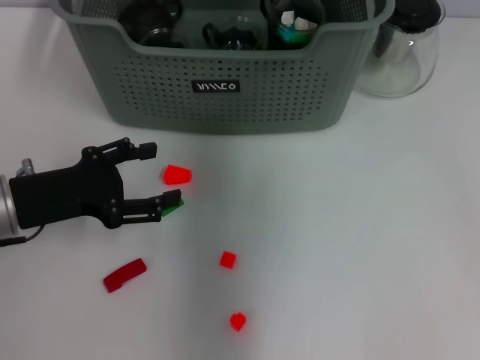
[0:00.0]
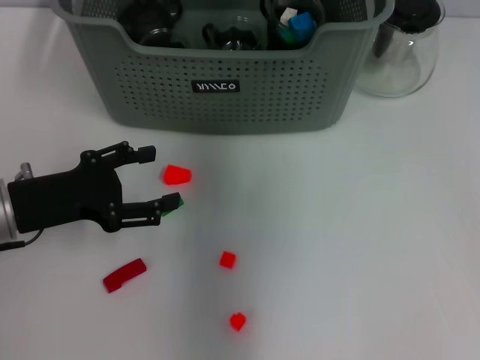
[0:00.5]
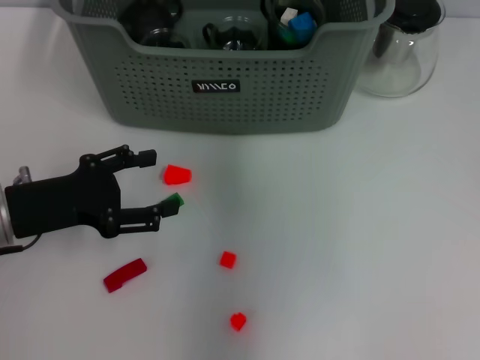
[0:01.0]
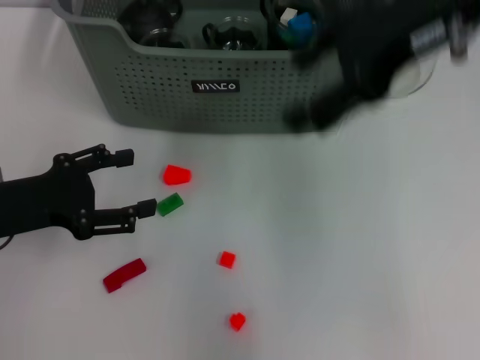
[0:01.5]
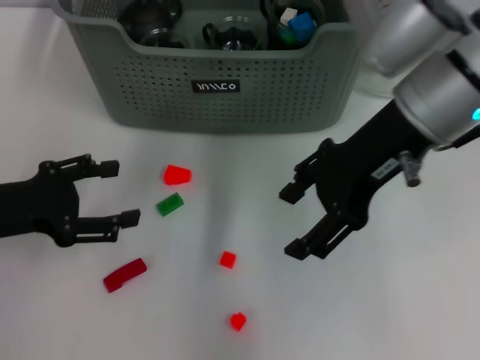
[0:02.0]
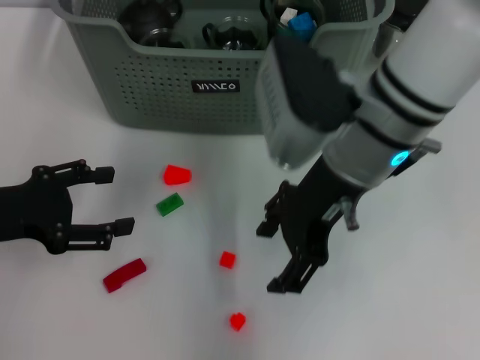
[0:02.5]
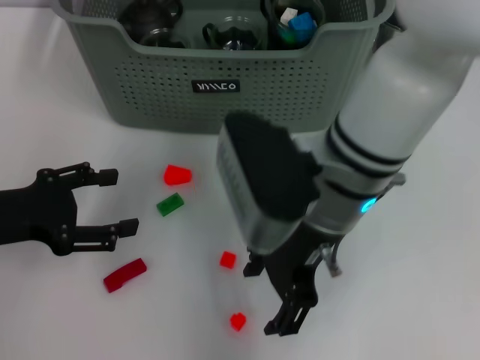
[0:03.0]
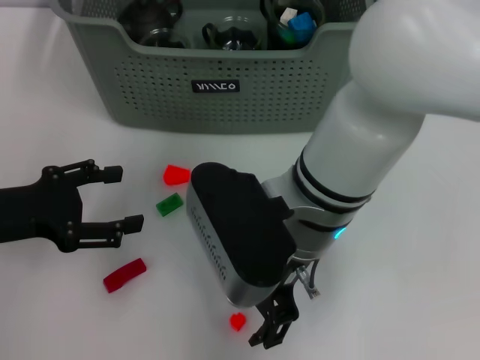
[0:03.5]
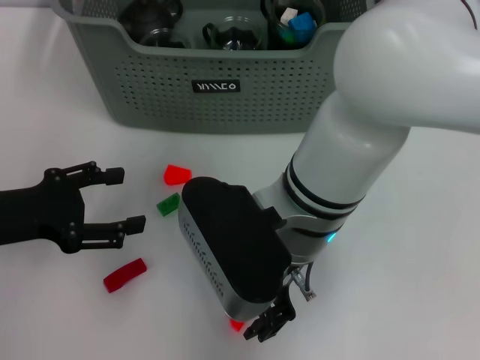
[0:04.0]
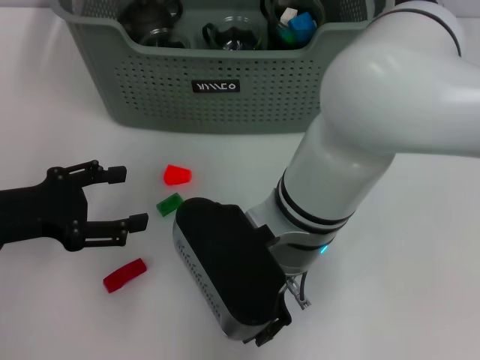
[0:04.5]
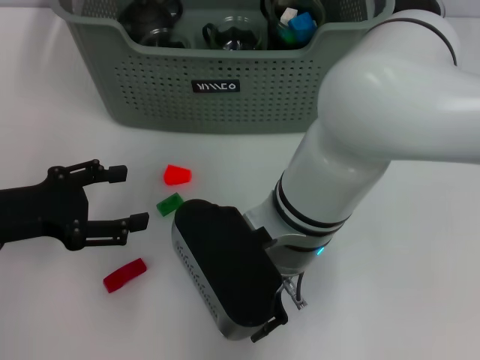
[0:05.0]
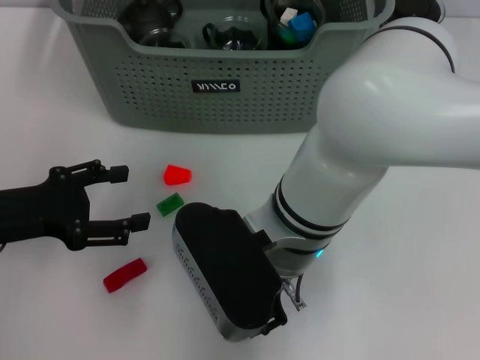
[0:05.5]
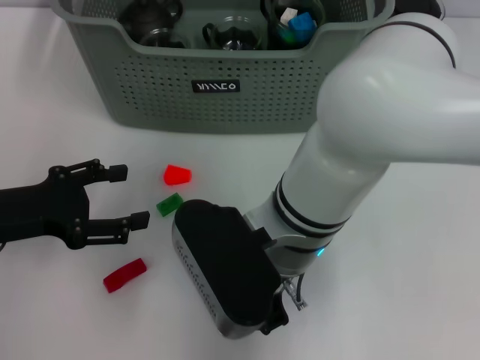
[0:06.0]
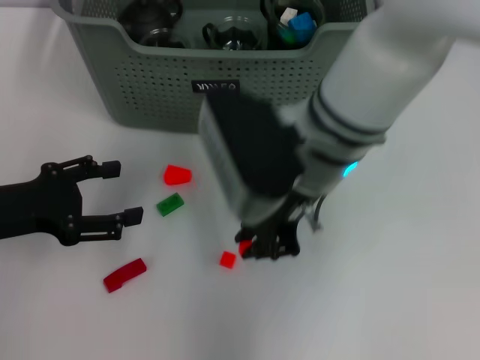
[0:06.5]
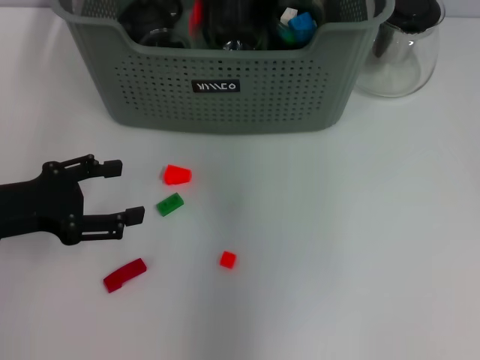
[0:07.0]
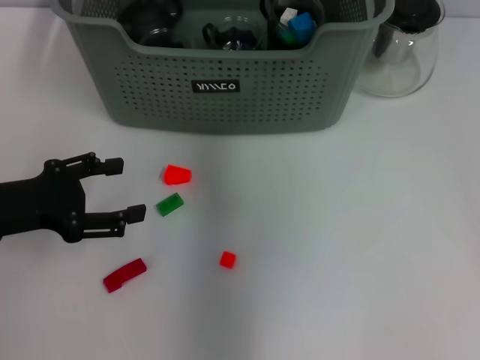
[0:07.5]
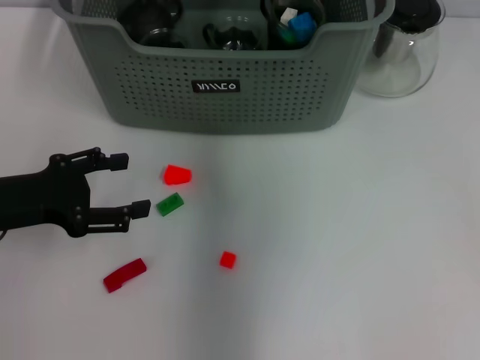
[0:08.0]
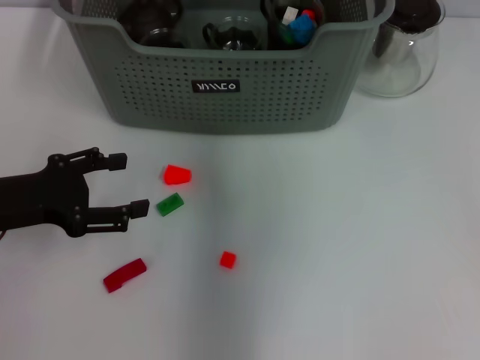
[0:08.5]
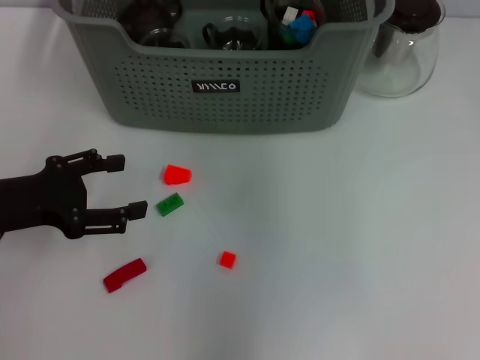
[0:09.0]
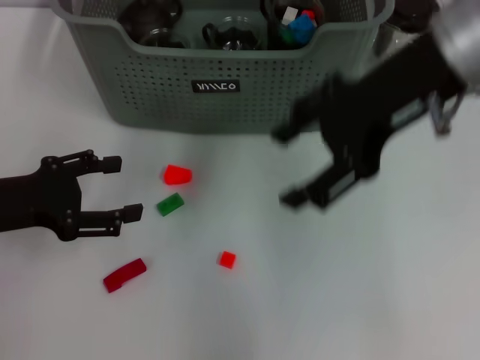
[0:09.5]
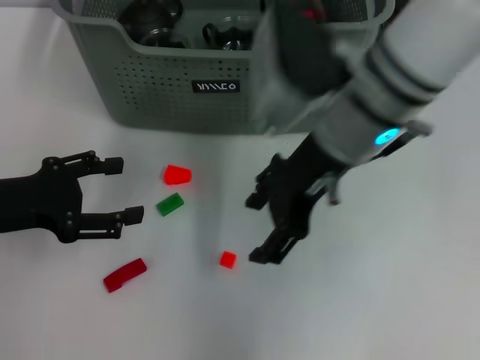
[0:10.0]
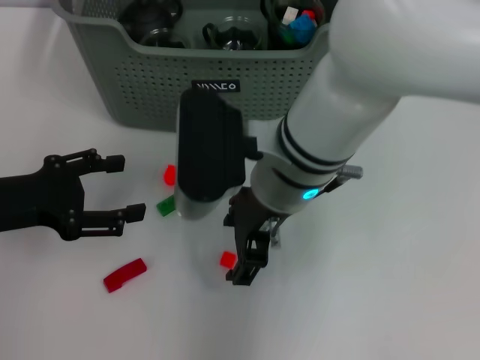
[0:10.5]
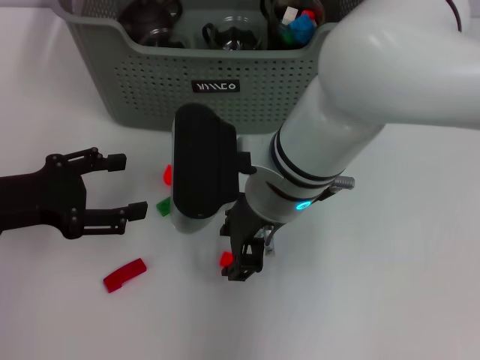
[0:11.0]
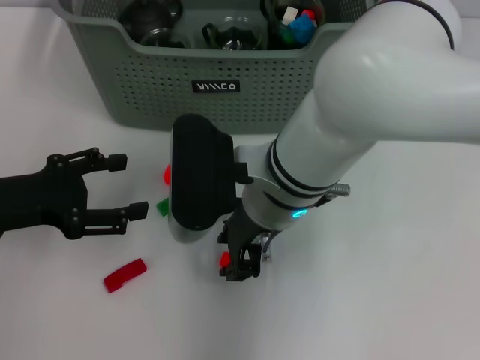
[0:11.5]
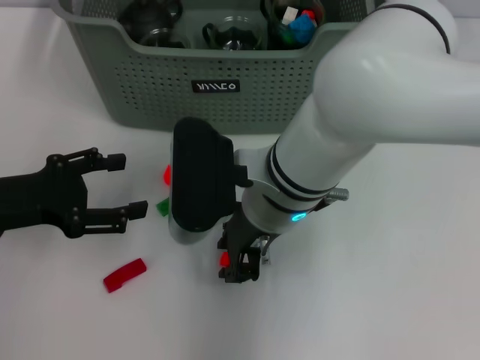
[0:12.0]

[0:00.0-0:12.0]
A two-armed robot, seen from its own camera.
Task of the whole recording: pick up the teacup on the table and place it into the storage bin, pick up the block on the table and place it into the storage bin.
Step, 0:00.5 to 0:05.5: Grasp the orange block with right gripper.
Step, 0:06.0 to 0:08.0: Place the orange block in the storage box with right gripper.
0:00.0 to 0:02.0: The right gripper travels backward by approximately 15 cm, and opens its fingers.
0:02.0 to 0:04.0: The right gripper goes roughly 15 cm to the left, downward and backward.
0:04.0 to 0:06.0: The right gripper closes up.
0:06.0 to 0:08.0: The right gripper moves forward and upward, roughly 25 cm.
0:08.0 to 0:10.0: The right gripper is displaced backward and downward by approximately 15 cm, and opens up.
0:10.0 to 0:12.0: The right gripper shifts about 10 cm downward and to the left, and closes.

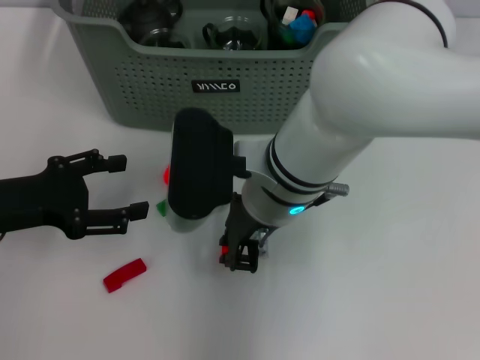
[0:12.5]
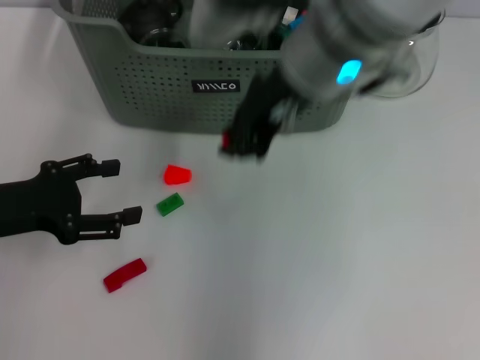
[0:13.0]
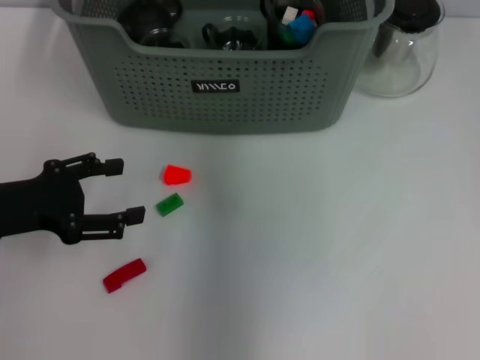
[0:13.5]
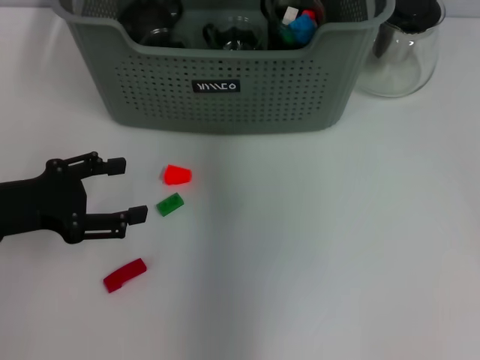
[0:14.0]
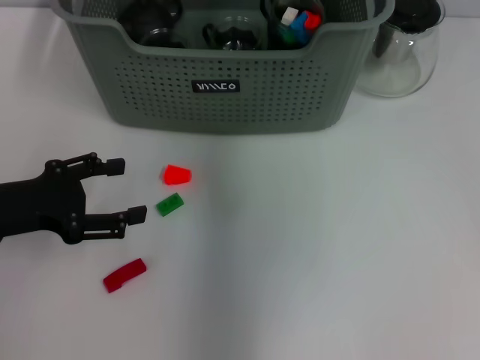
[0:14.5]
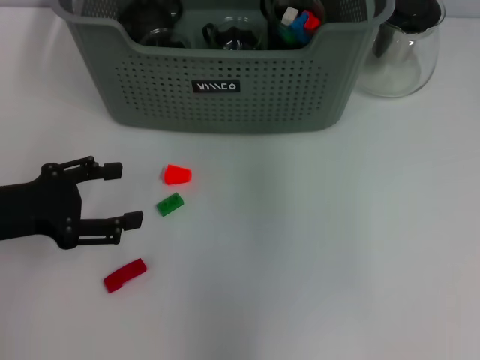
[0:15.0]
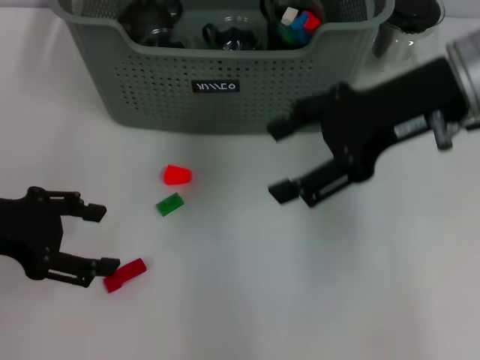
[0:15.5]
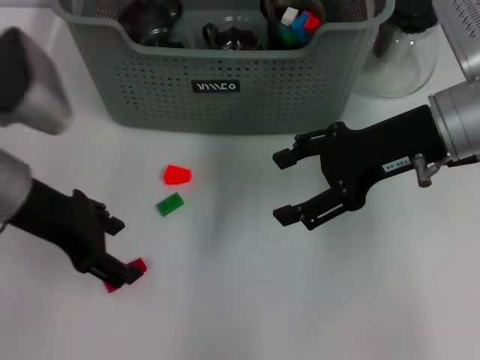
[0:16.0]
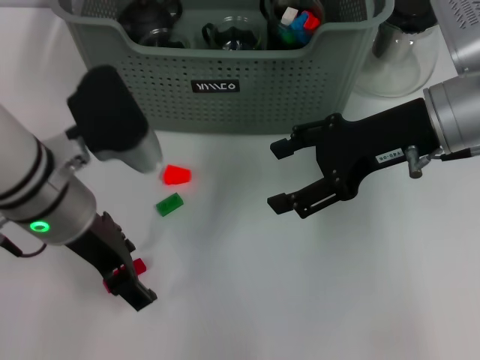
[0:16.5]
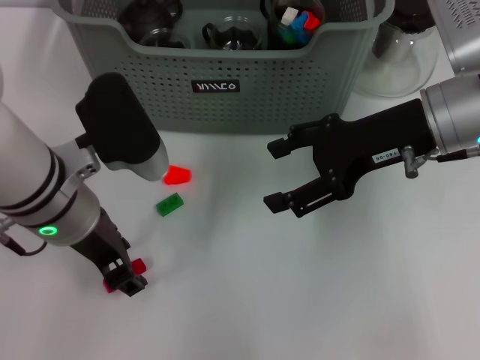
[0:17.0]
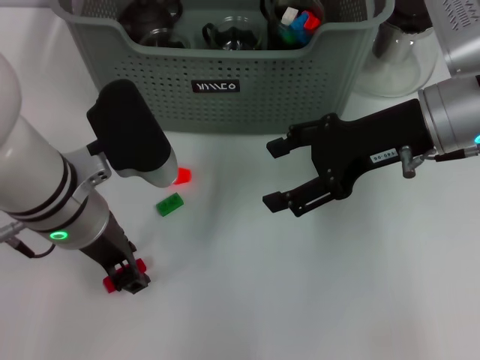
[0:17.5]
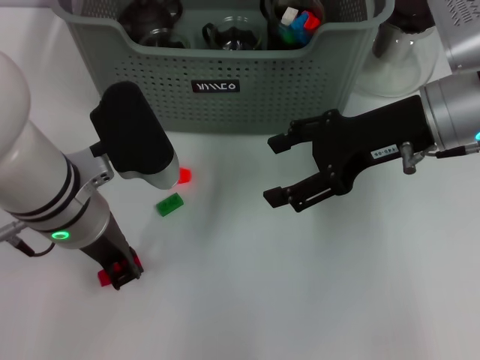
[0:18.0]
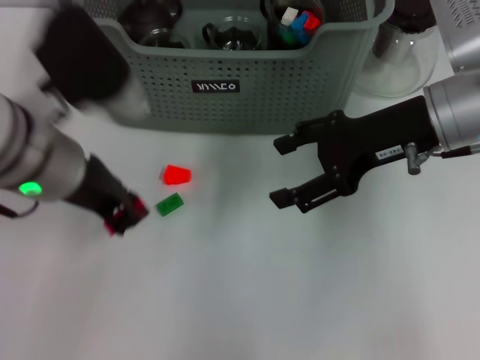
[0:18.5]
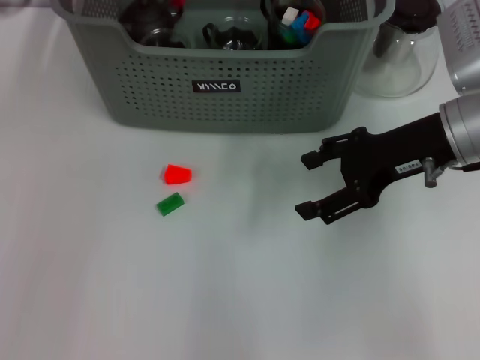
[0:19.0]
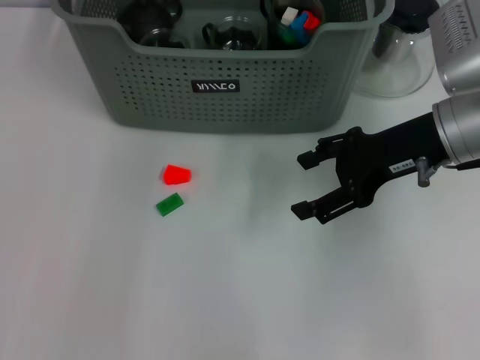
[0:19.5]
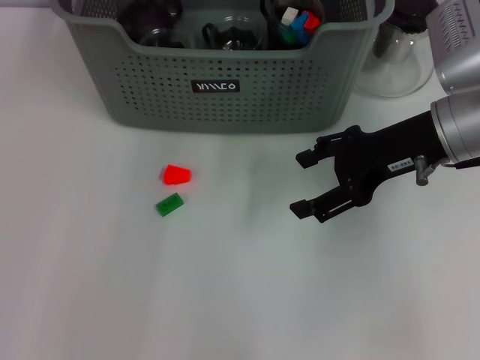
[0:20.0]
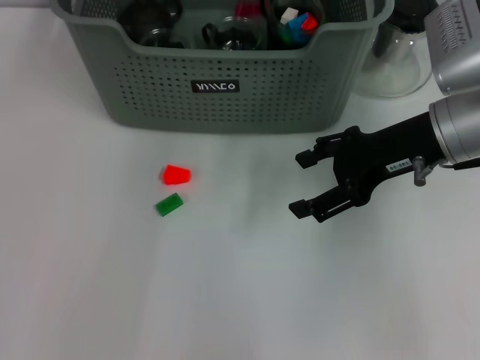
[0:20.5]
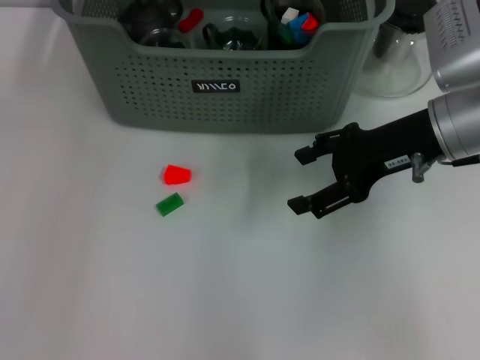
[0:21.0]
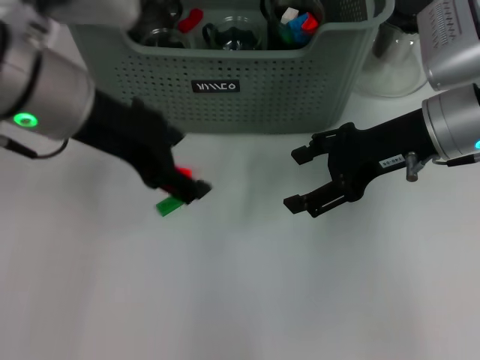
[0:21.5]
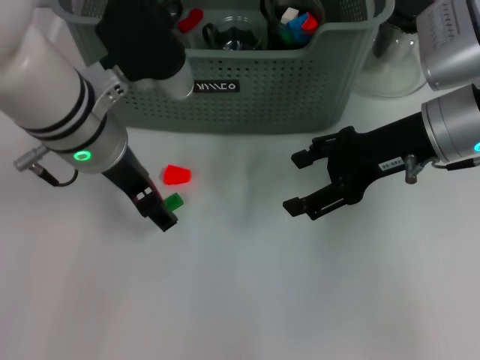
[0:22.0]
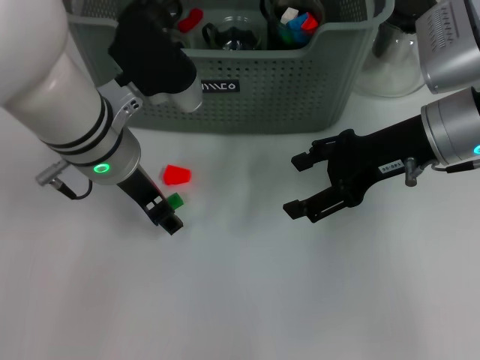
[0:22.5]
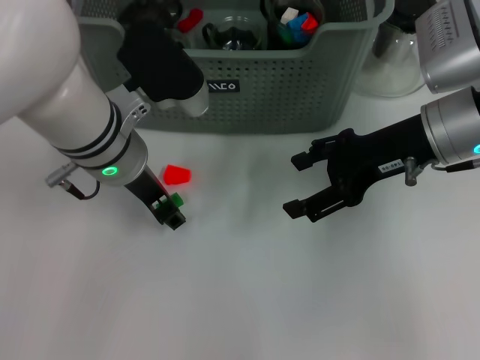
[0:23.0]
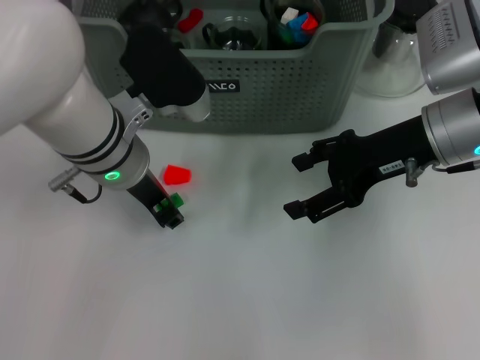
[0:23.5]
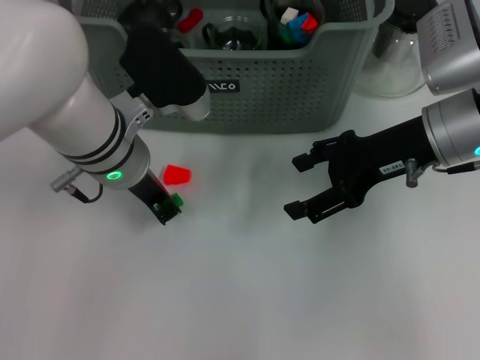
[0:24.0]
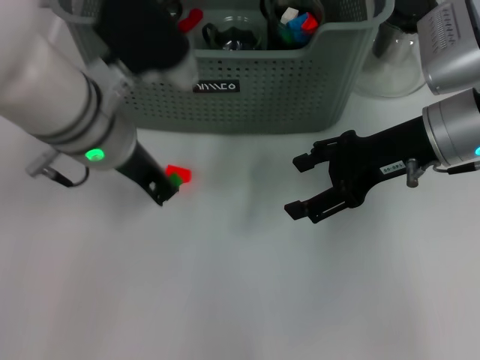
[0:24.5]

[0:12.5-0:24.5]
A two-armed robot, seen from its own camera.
Task of the whole recording: pick up the teacup on the table and place it into the storage bin, pick up the block on the table and place it into the storage bin.
Step, 0:12.5 to 0:14.0: Place the orange block in the storage box with right gripper.
Step, 0:14.5 to 0:18.0: Grasp the red block with left gripper.
Step, 0:18.5 to 0:20.0: Place the red block in the storage box with left gripper.
Step, 0:20.5 to 0:24.0: Grasp the green block with left gripper.
0:12.5 to 0:14.5: The right gripper goes approximately 25 cm upward, forward and to the right, and opens.
0:14.5 to 0:16.5: The left gripper heads to the right, covering roughly 15 cm. Meanwhile the right gripper shifts some 20 cm downward, backward and to the right, and opens up.
0:16.5 to 0:18.5: The left gripper closes up.
0:18.5 to 0:20.5: The left gripper is displaced forward, to the right and upward by approximately 20 cm.
0:20.5 to 0:22.5: The left gripper is displaced backward, downward and to the left by roughly 20 cm, and opens.
0:22.5 to 0:24.5: The left gripper closes its fingers.

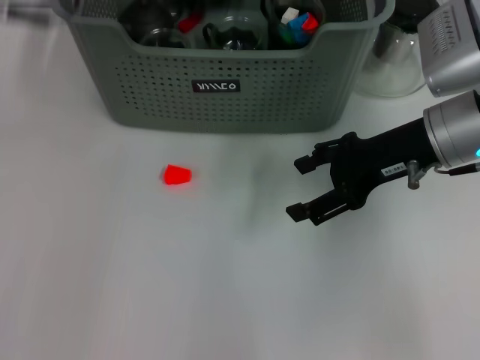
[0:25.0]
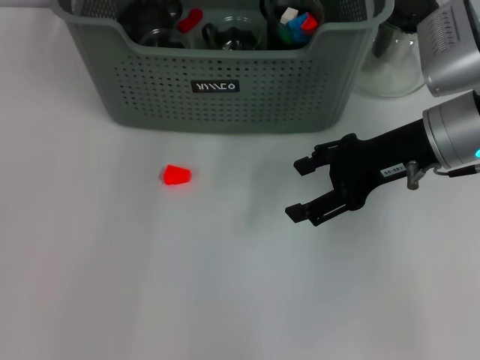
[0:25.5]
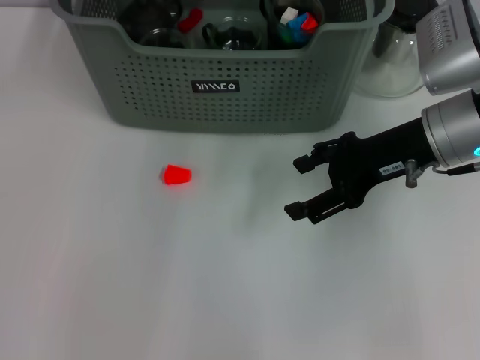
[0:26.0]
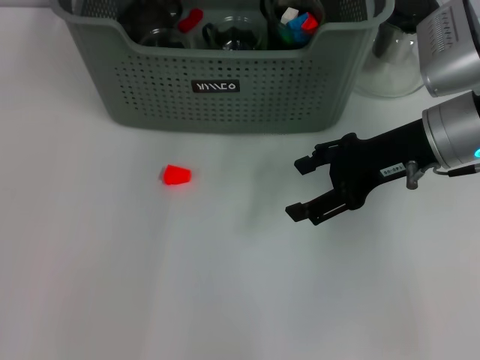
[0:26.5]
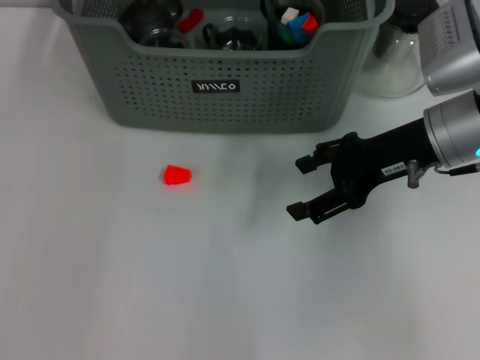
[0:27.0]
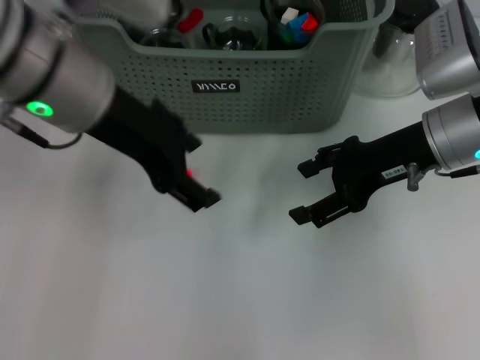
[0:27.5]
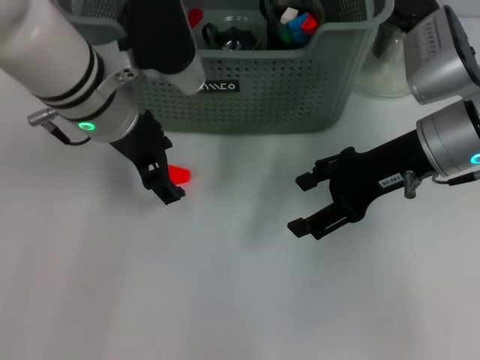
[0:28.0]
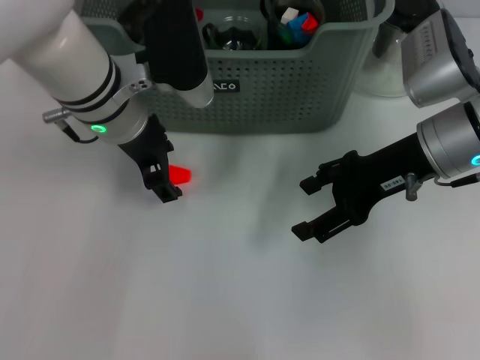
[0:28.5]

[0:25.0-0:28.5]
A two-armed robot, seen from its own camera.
Task of the whole recording: pick up the teacup on the table and place it into the storage bin, pick up the block on the table and place it into the storage bin.
0:25.0 to 0:27.0: The left gripper travels forward and back again, about 15 cm each way, and opens up.
0:27.0 to 0:28.5: The left gripper shifts about 20 cm downward.
